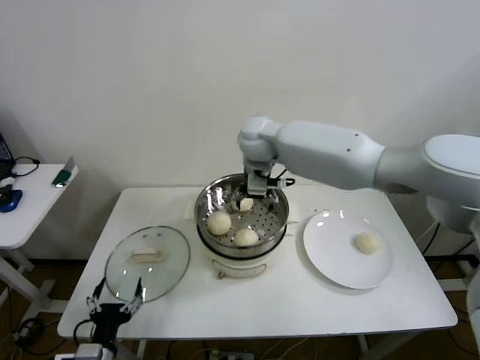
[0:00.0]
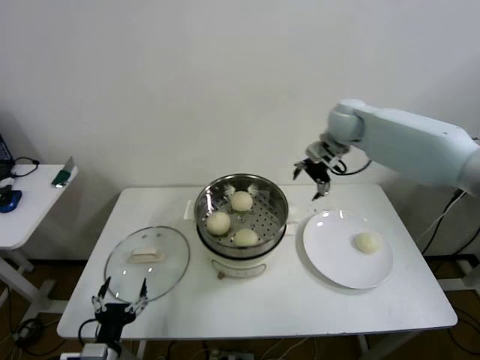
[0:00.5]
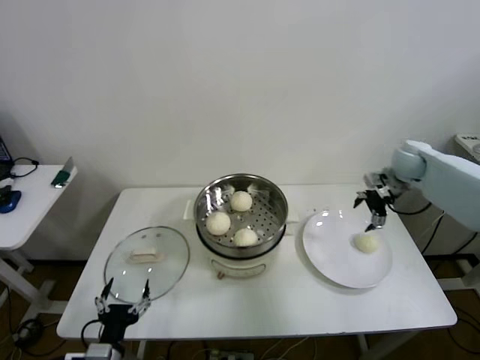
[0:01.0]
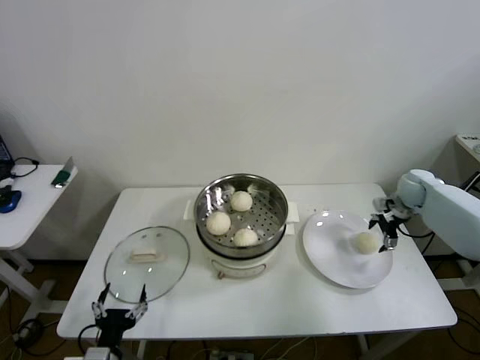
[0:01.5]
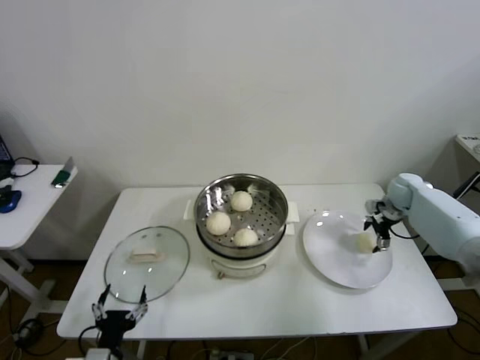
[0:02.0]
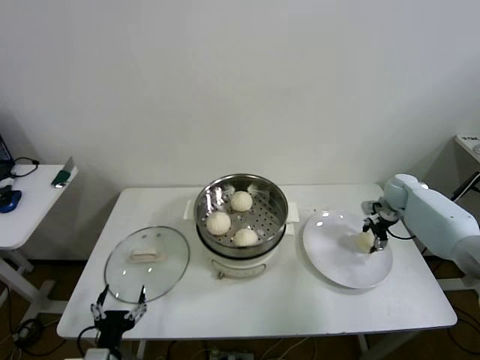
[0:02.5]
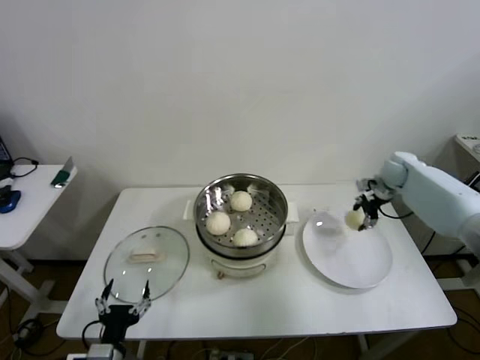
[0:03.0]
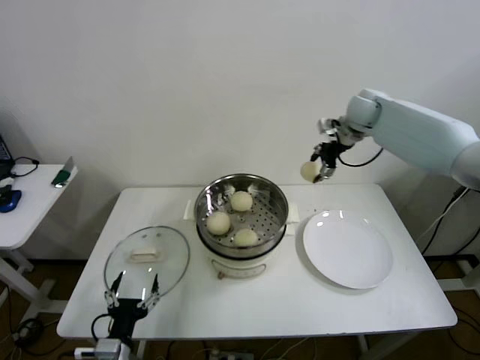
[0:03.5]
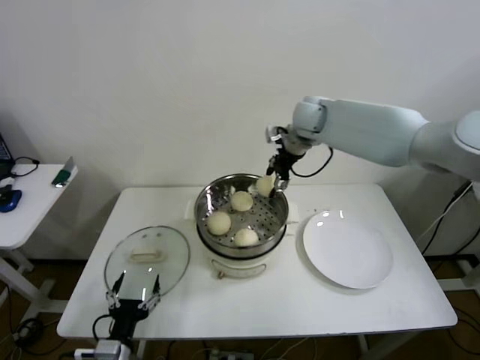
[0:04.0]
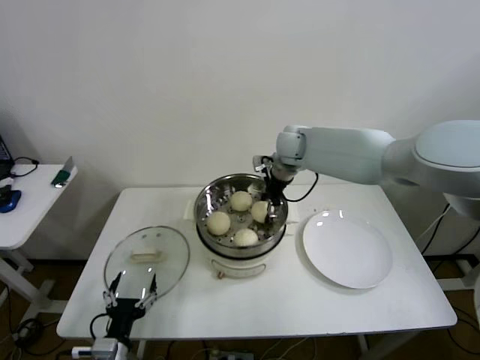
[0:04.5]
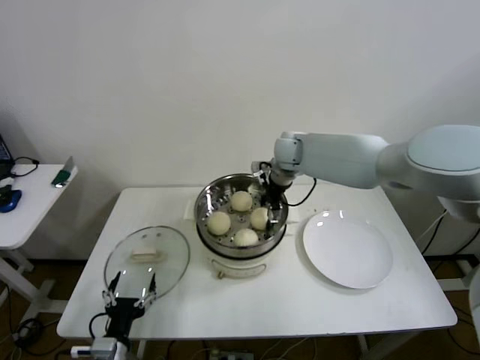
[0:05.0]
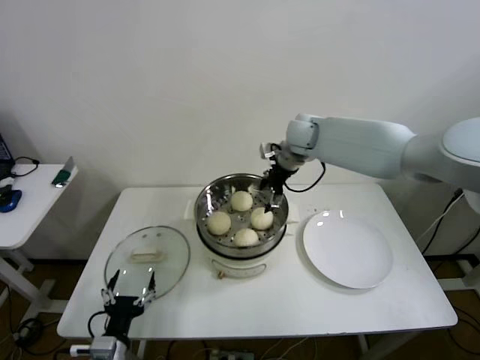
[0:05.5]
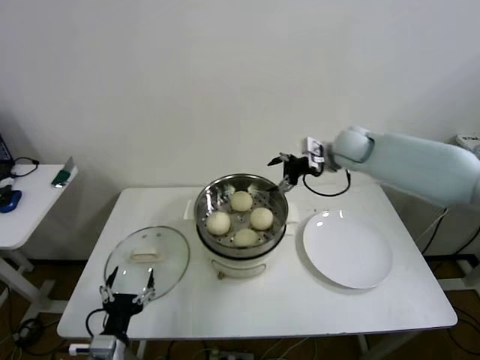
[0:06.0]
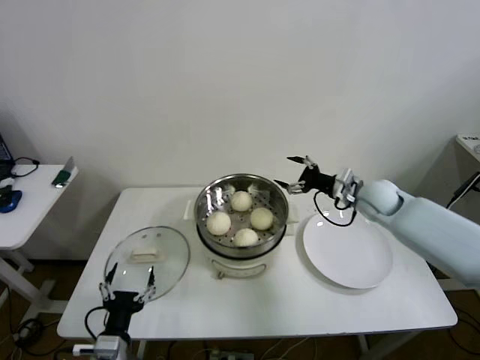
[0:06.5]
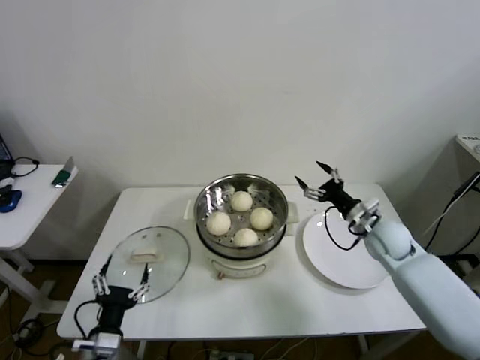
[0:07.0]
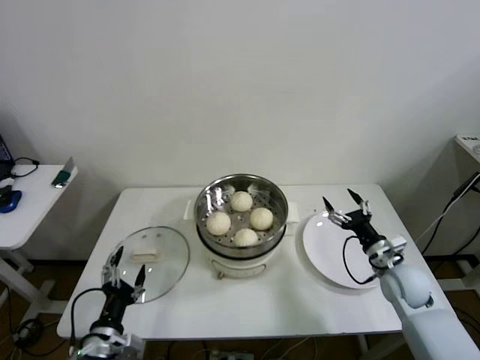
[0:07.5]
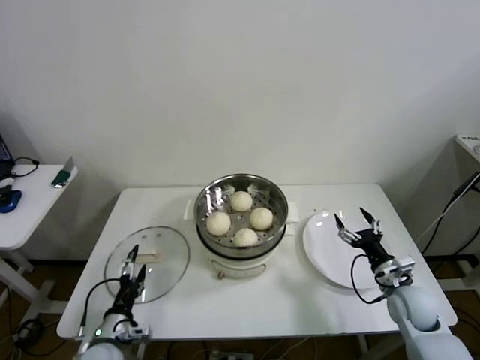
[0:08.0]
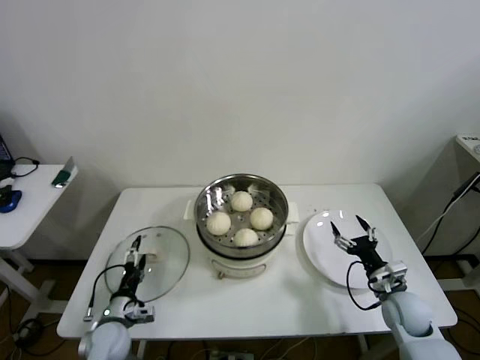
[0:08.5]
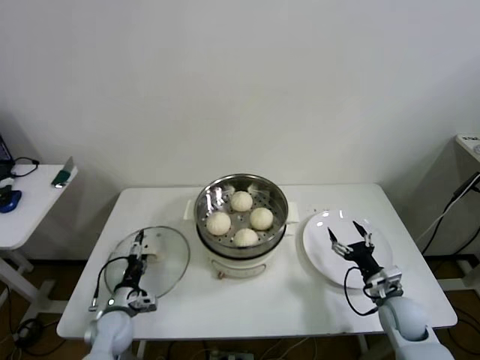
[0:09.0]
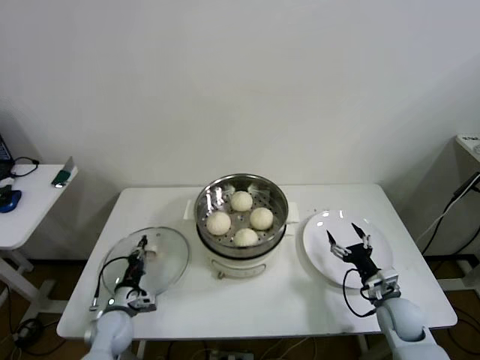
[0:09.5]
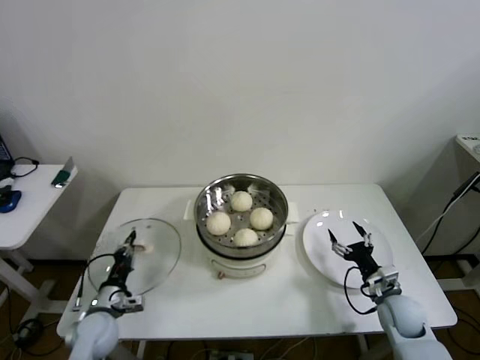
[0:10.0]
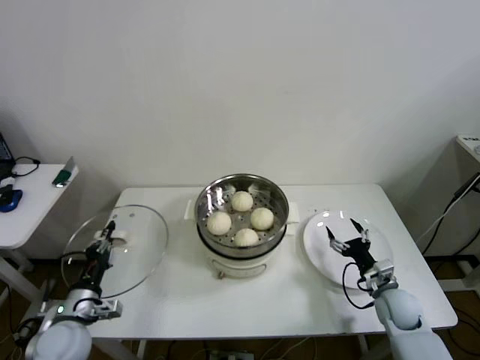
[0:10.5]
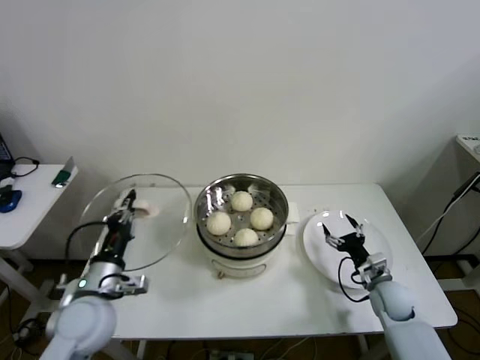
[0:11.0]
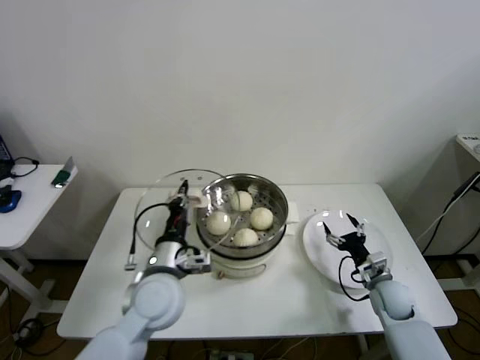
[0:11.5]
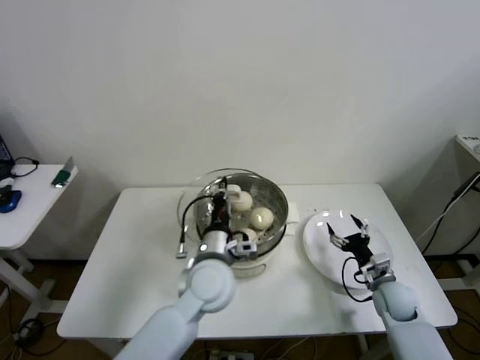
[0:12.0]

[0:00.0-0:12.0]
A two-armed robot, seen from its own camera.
Step, 0:00.0 to 0:02.5: Grasp the baozi in the plate with right gripper.
Step, 0:03.0 to 0:05.0: Place the baozi on the steamer with right gripper.
Step, 0:05.5 to 0:09.5: Grasp the pot lid with left gripper.
0:00.0 to 0:02.0: The right gripper goes roughly 50 cm to the right and downward.
0:02.0 to 0:04.0: The right gripper goes approximately 35 cm to the left and upward, and closes.
0:04.0 to 0:06.0: The right gripper goes approximately 10 cm to the right and downward, and opens up.
0:06.0 to 0:08.0: The left gripper moves forward, some 5 cm. The right gripper moves downward, backward and to the right, some 40 cm.
0:08.0 to 0:10.0: The left gripper is displaced forward by roughly 10 cm, and closes.
0:10.0 to 0:12.0: The left gripper goes approximately 30 cm to the right and upward.

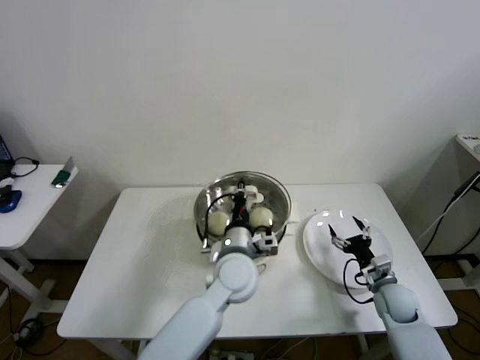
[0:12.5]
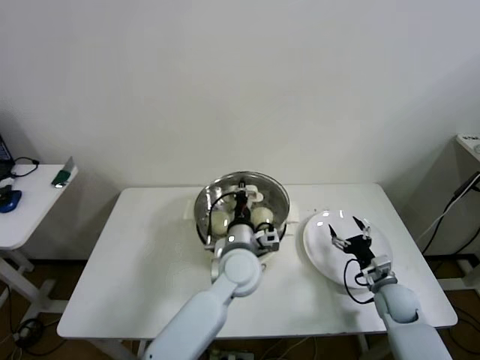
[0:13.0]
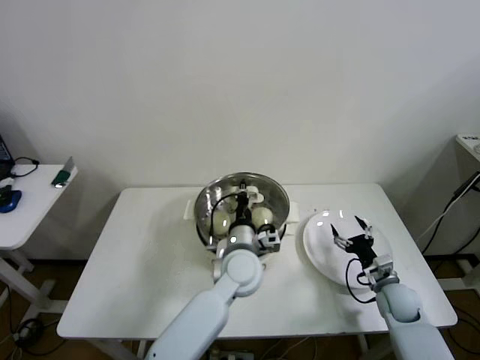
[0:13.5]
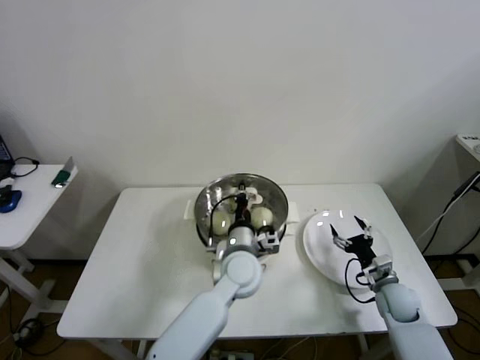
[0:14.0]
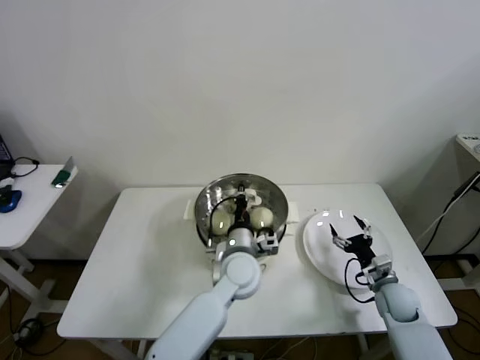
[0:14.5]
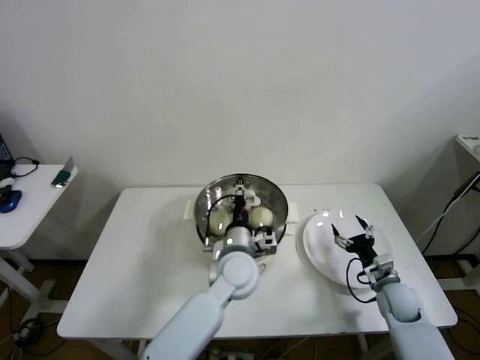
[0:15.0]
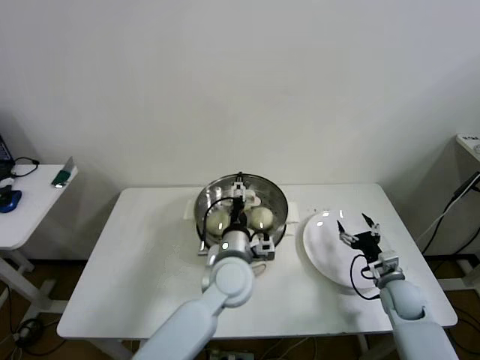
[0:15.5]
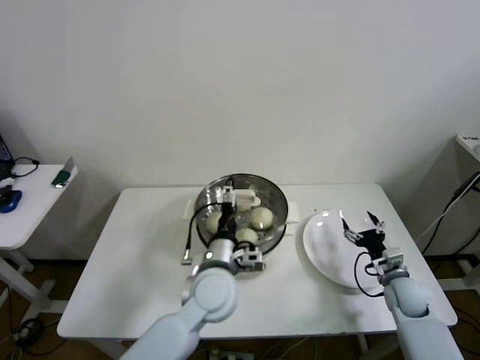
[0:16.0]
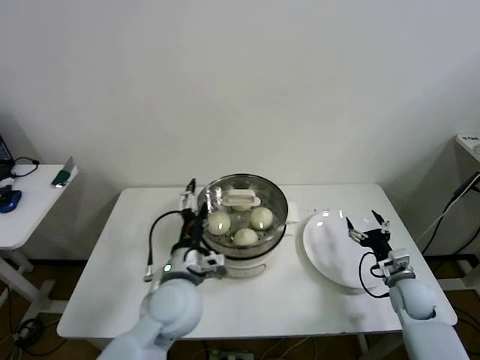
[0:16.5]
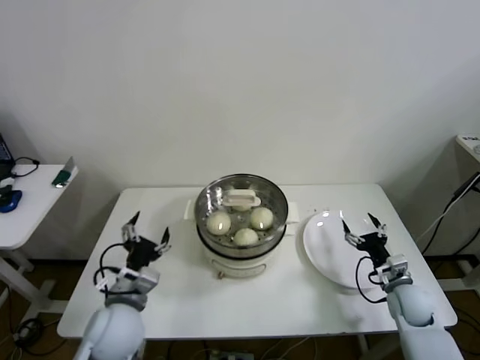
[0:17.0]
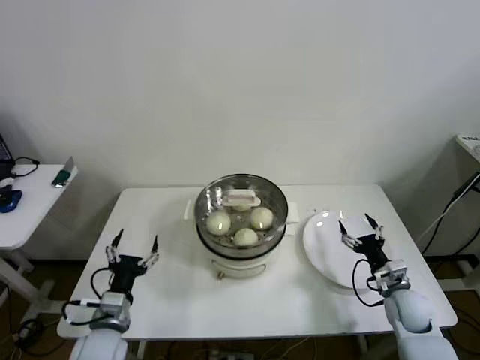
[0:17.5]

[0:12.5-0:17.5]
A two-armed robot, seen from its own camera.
Step, 0:12.5 to 0:16.0: Place the pot lid on the steamer with left gripper.
0:12.5 to 0:15.0: The grippers make only small movements.
0:15.0 to 0:17.5: The left gripper travels to the left and backward by approximately 30 cm, and opens its fingers.

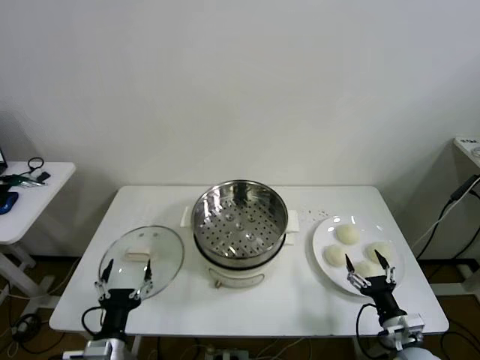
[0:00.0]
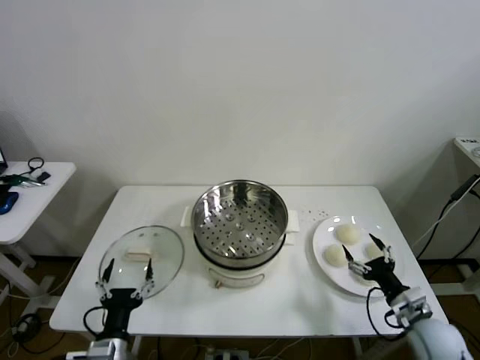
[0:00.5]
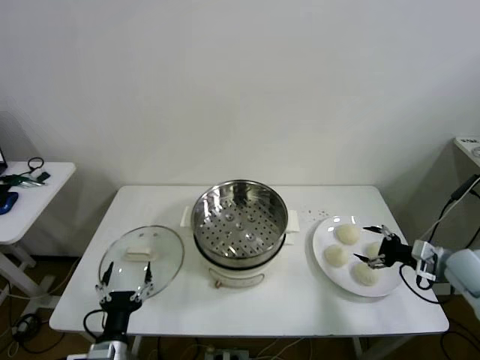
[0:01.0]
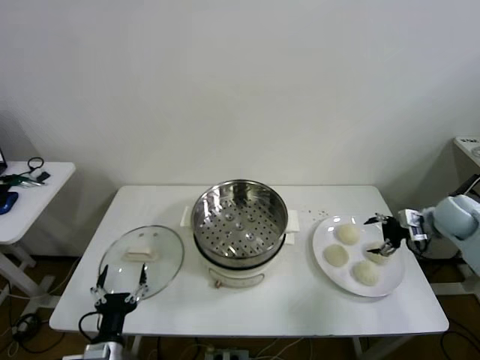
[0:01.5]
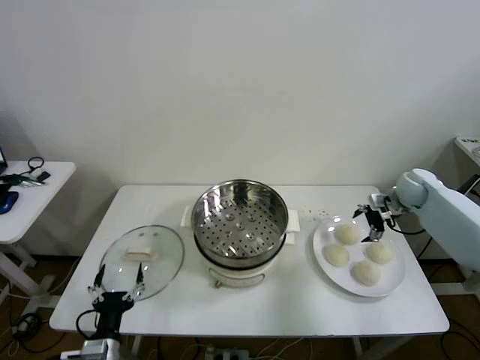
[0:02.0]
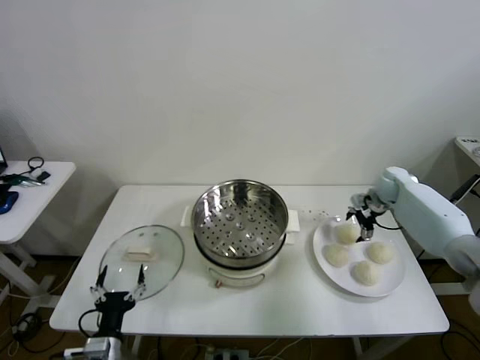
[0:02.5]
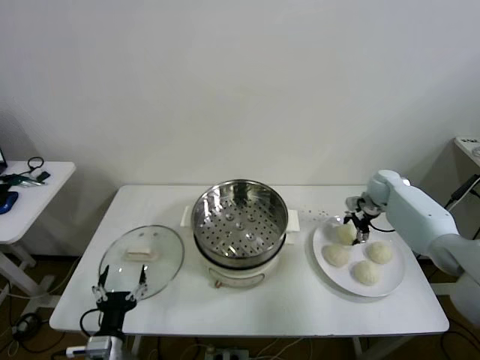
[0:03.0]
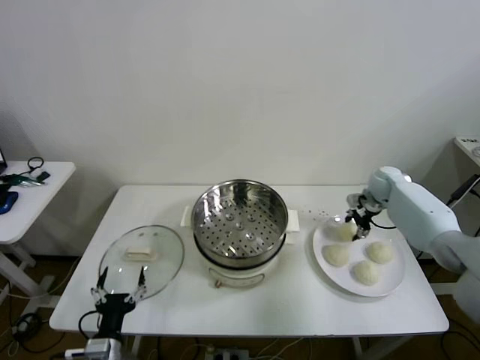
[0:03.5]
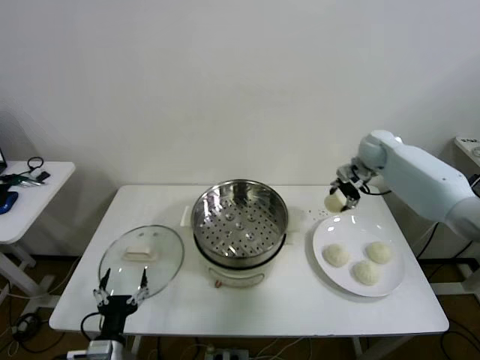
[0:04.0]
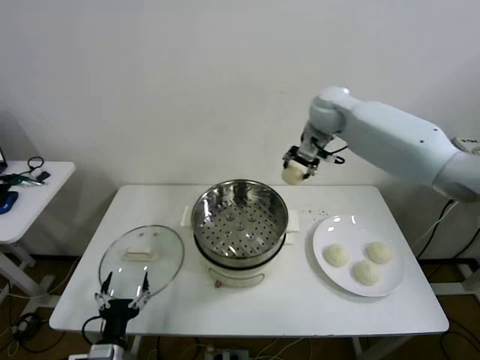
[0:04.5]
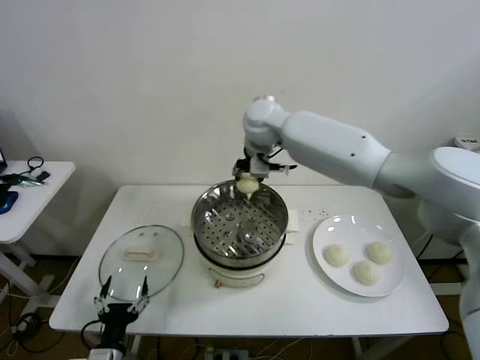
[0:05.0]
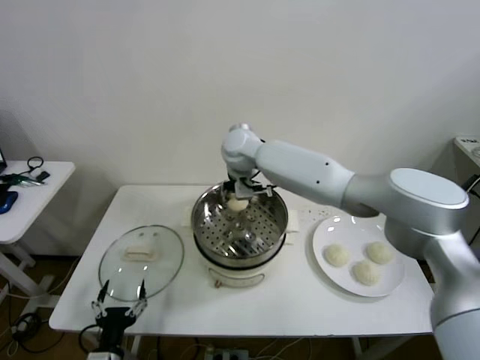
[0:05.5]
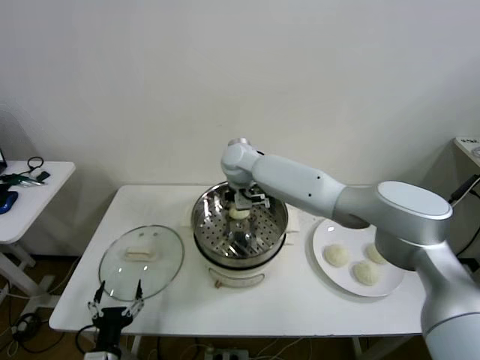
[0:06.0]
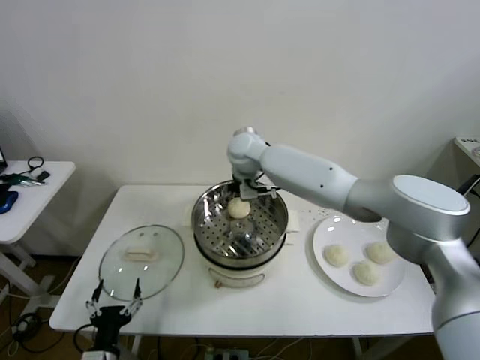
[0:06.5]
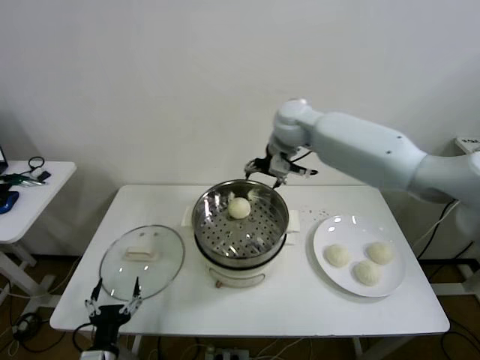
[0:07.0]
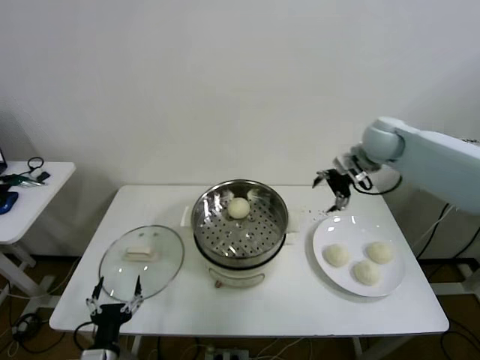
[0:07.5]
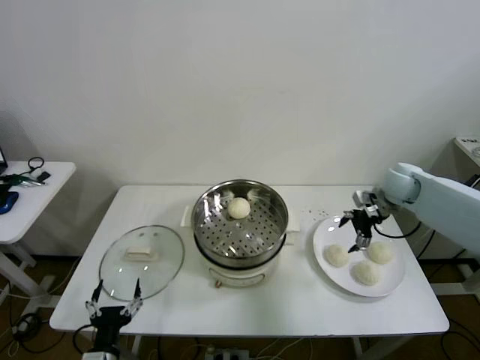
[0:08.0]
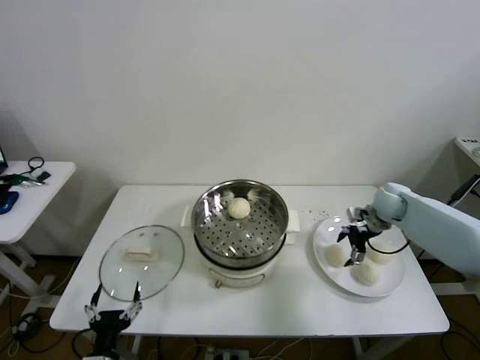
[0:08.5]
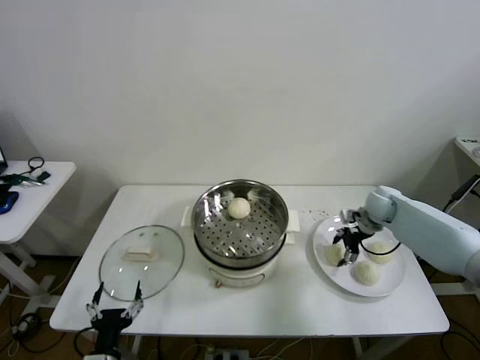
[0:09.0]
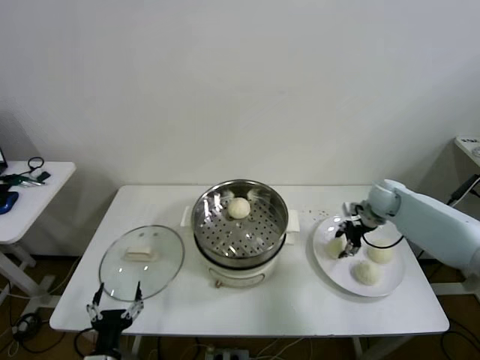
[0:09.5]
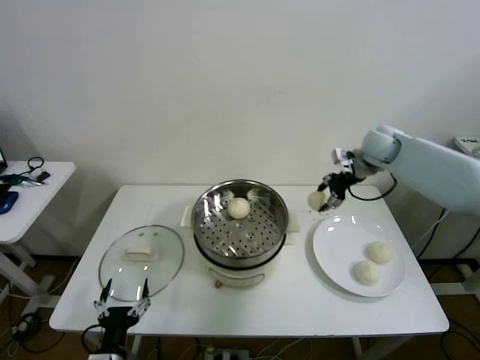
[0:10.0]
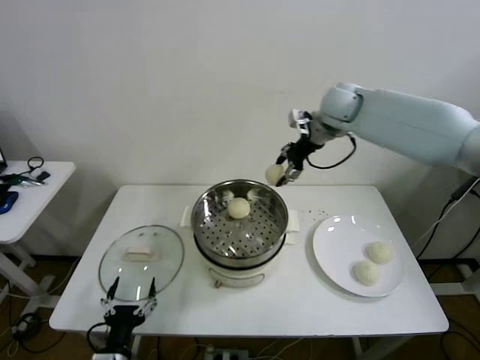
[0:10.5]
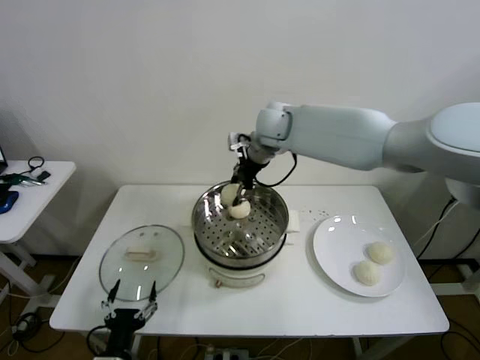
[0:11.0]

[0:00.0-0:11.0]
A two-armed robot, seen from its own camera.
Step, 0:00.0 to 0:03.0: Grasp the baozi in the plate with right gripper.
Step, 0:03.5 to 0:06.0: Place the baozi on the steamer with right gripper.
Step, 0:06.5 to 0:09.0: Grasp the baozi in the plate with right gripper.
0:02.0 to 0:03.5: The right gripper moves about 5 cm, and closes.
0:03.5 to 0:05.5: The right gripper is displaced to the left by roughly 40 cm.
0:05.5 to 0:07.5: The right gripper goes roughly 35 cm to the right, and opens.
0:07.5 to 0:09.0: The right gripper shifts roughly 20 cm downward, and closes up.
0:09.0 to 0:11.0: The right gripper moves to the left and upward, roughly 40 cm.
